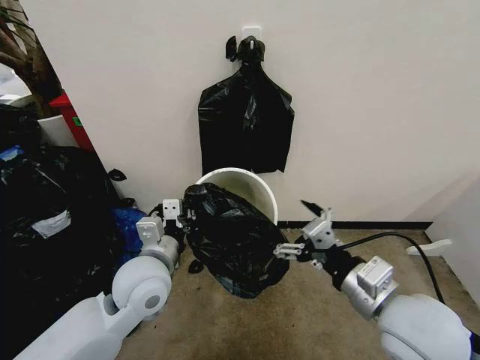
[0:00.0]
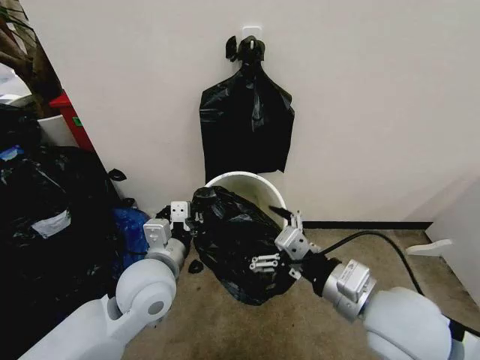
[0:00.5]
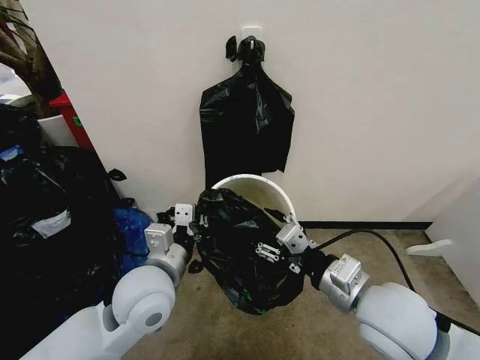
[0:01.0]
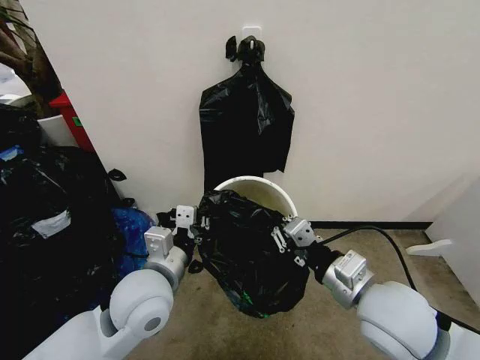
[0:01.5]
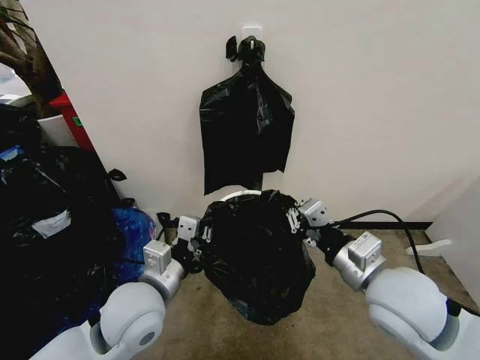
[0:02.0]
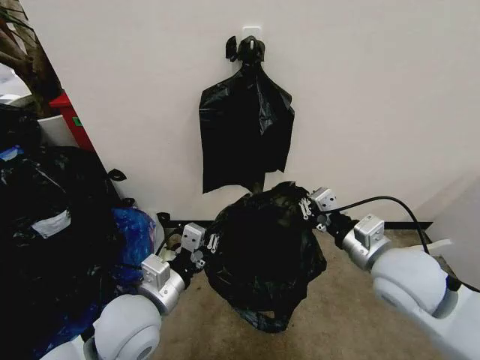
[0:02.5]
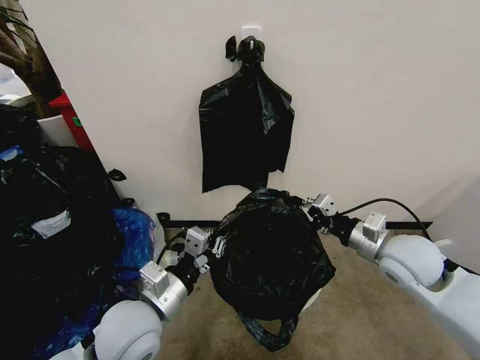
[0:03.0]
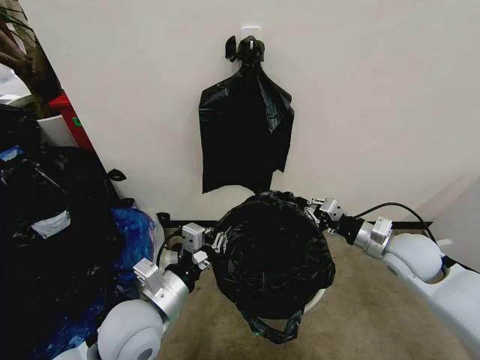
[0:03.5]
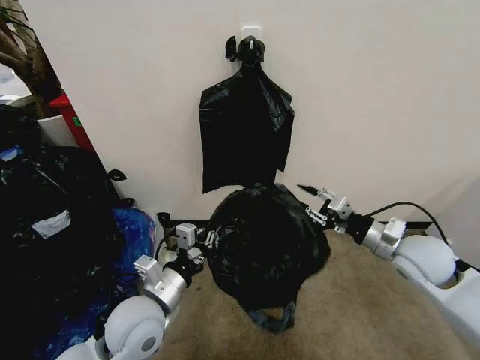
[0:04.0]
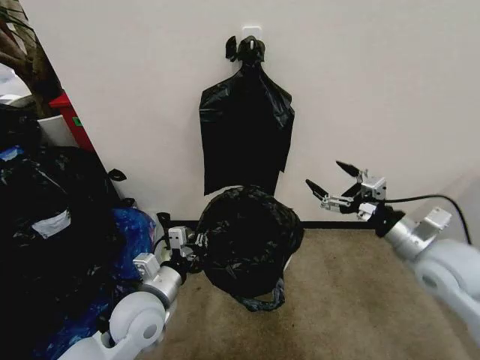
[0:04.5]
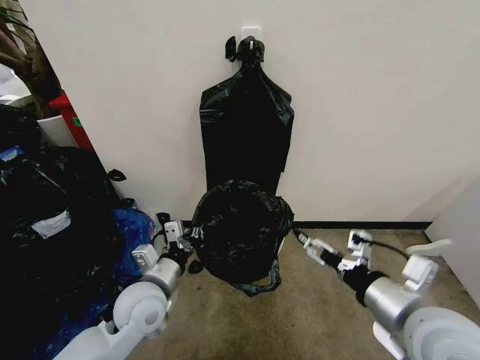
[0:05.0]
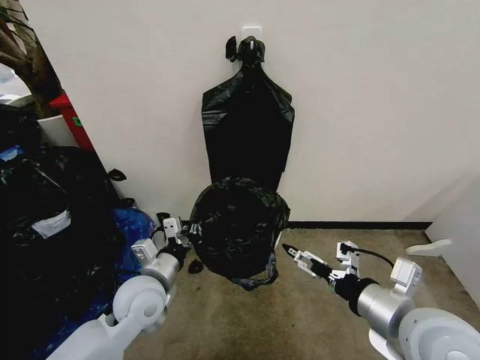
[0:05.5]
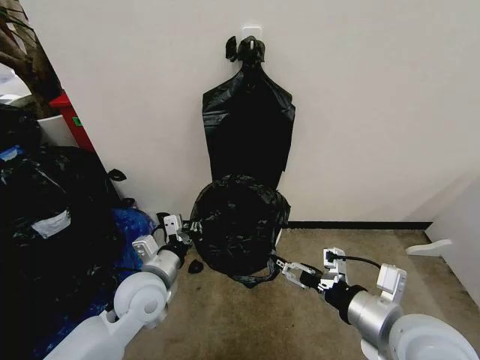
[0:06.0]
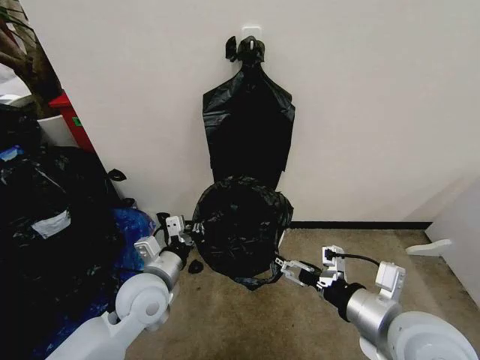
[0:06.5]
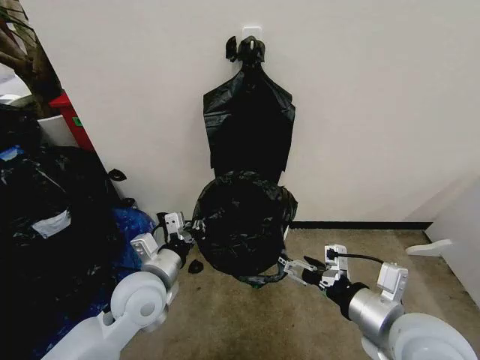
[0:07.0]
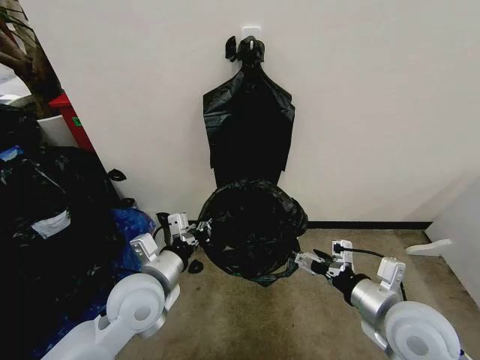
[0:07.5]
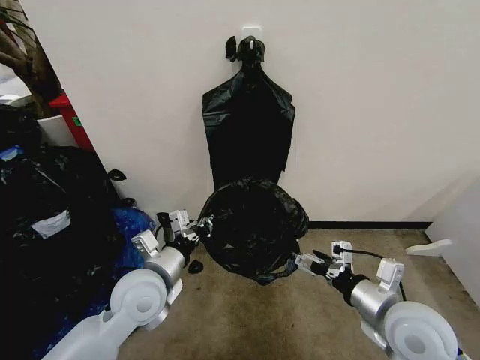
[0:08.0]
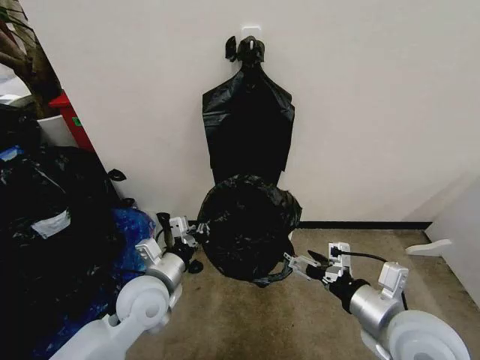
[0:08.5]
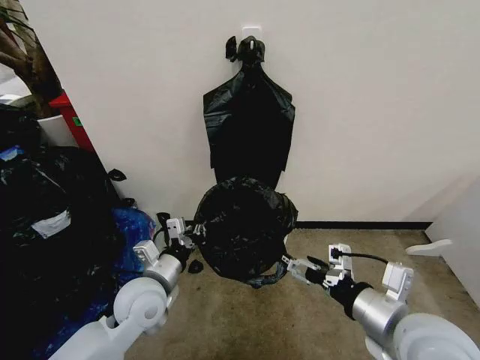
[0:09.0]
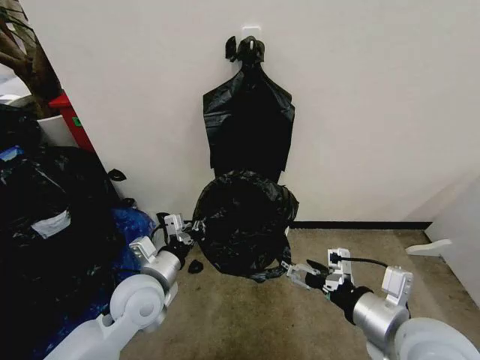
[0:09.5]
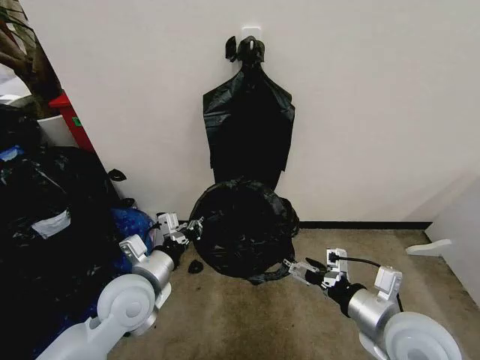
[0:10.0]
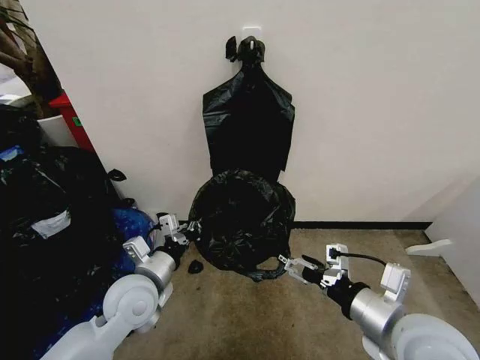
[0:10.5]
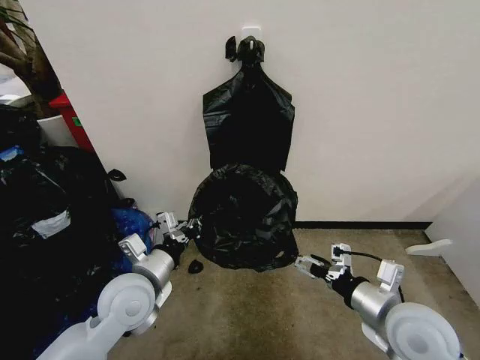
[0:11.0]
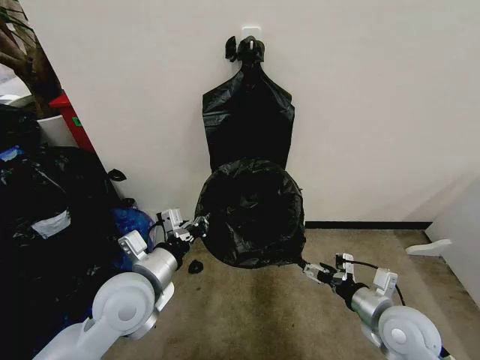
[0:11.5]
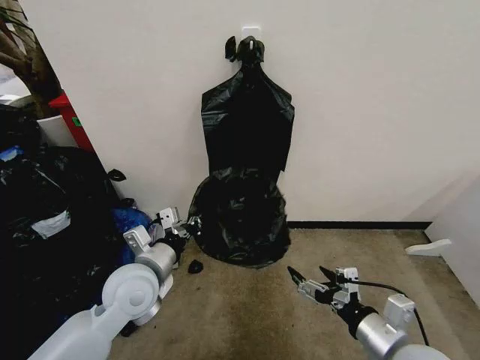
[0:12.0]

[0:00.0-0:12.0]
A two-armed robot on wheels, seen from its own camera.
Task of the whole recording: Place the garbage bag over the trash bin.
0:00.0 to 0:02.0: The right gripper closes its fingers.
0:02.0 to 0:04.0: The right gripper moves to the right, forward and downward, about 15 cm, and opens up.
0:04.0 to 0:06.0: The left gripper moves about 5 cm; the right gripper shifts some 20 cm backward and to the left, and opens up.
0:06.0 to 0:08.0: The right gripper moves downward, some 5 cm.
0:10.0 to 0:12.0: The right gripper swings up and down, some 10 cm each way, with 2 reversals.

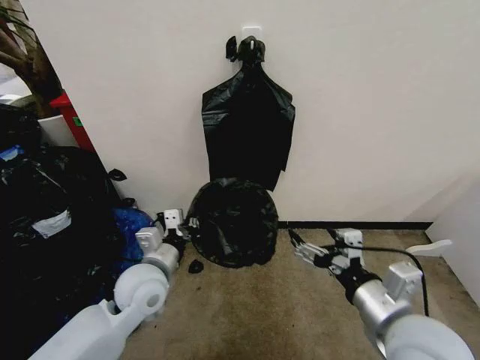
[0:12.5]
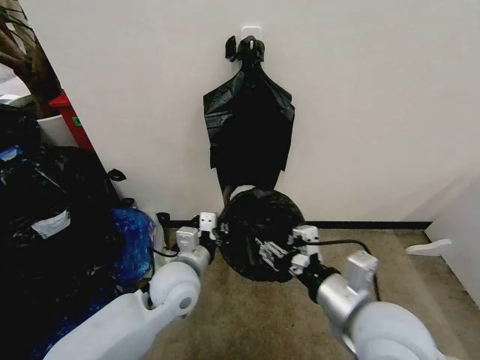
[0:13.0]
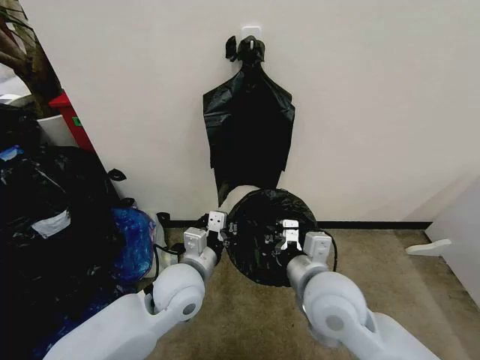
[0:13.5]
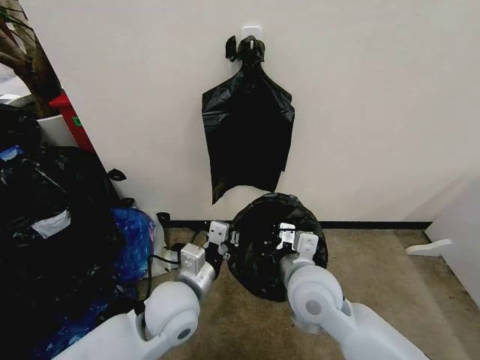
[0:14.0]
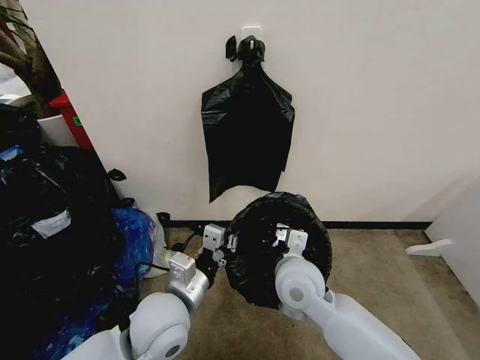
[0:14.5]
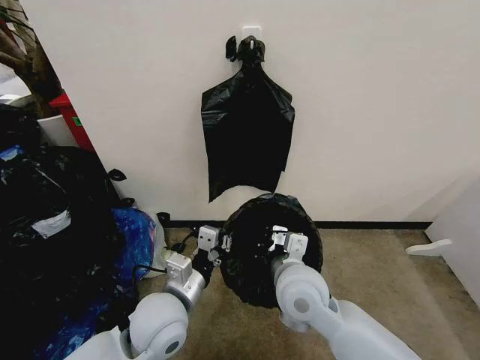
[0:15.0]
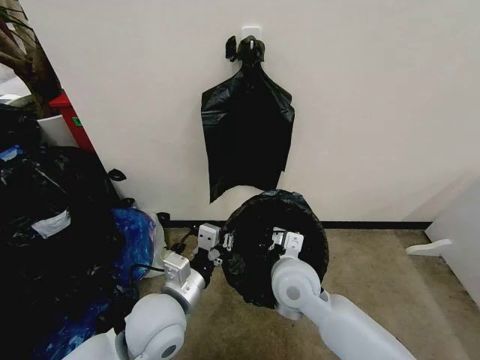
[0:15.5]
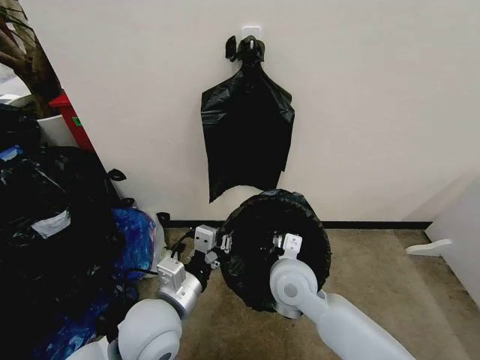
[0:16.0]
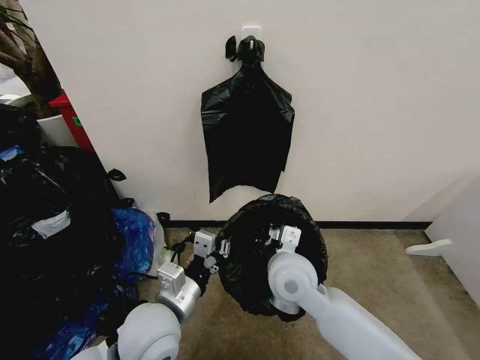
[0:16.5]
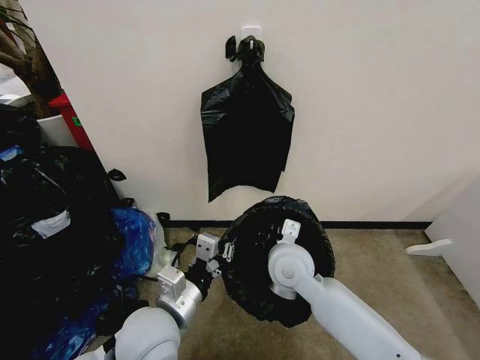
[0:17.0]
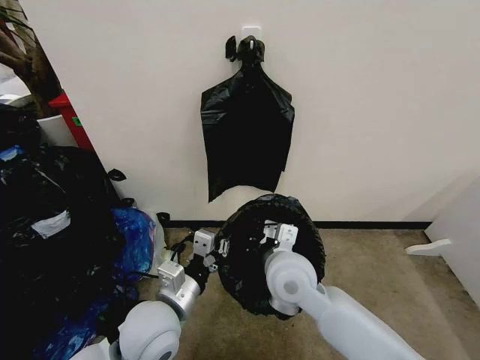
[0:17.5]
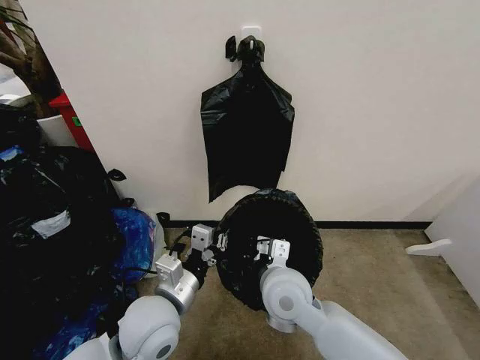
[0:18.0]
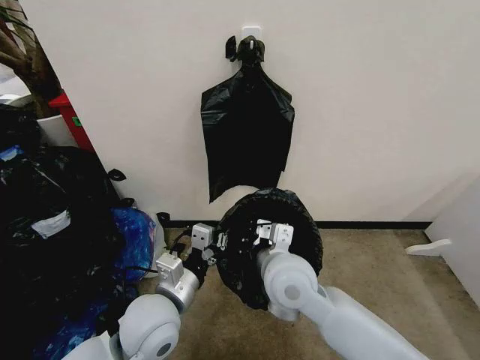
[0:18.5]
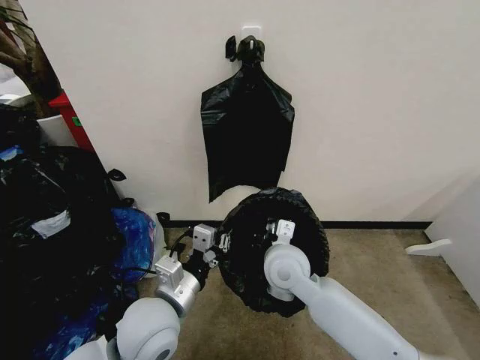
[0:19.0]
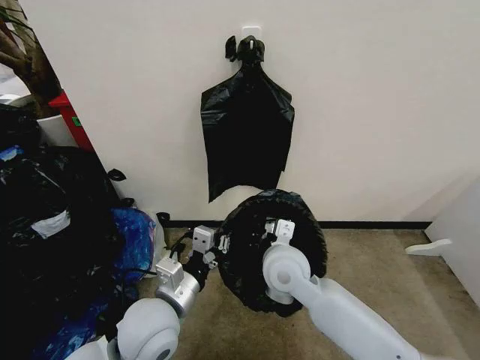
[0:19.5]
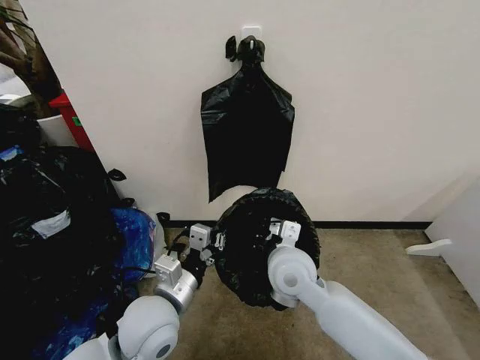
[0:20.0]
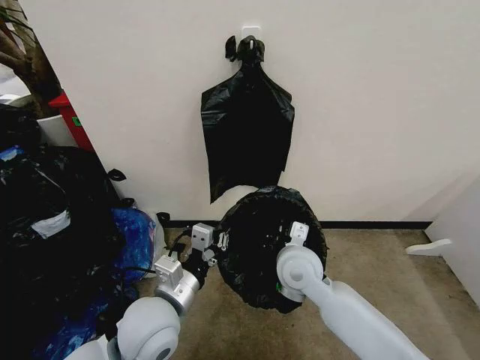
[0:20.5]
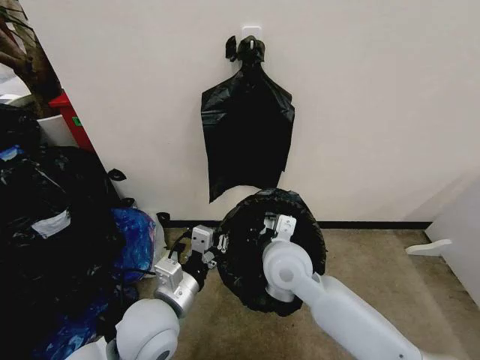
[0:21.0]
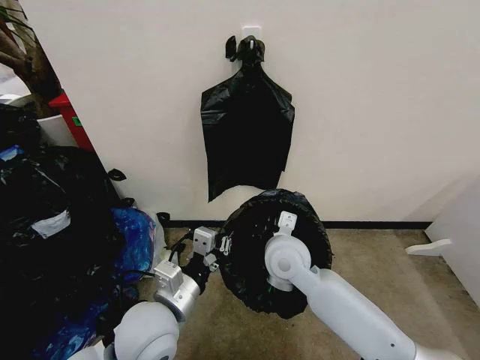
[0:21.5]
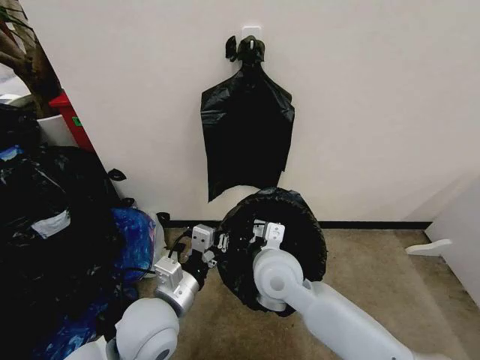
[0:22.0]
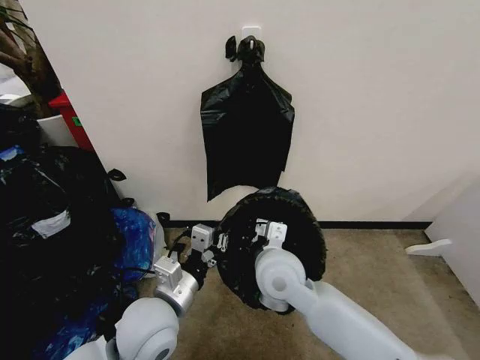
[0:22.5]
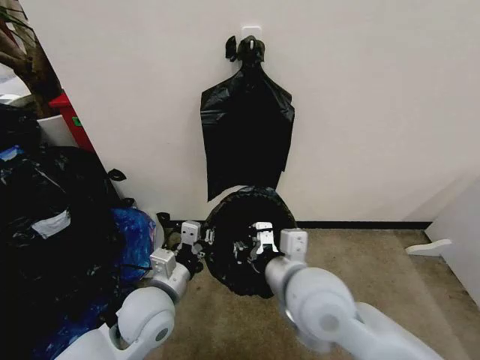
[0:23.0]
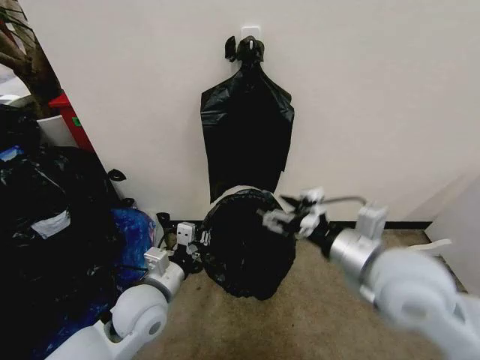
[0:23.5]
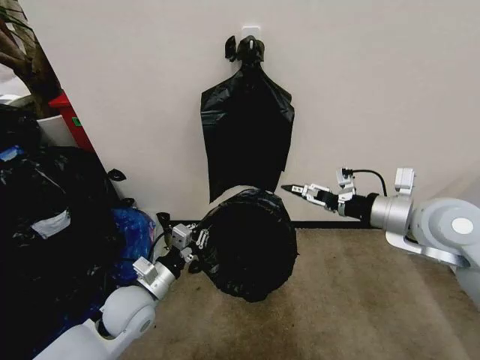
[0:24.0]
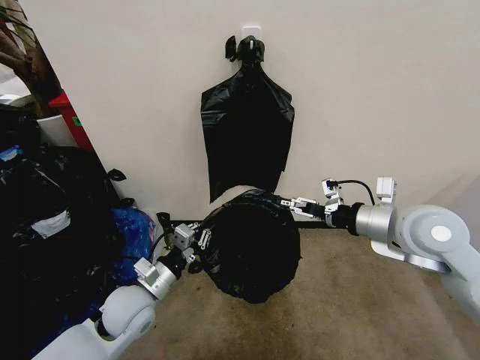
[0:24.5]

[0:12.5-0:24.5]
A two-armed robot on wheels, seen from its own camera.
Task of the whole recording: Place the garbage bag over the trash bin.
0:12.5 to 0:14.5: The left gripper travels backward and to the right by about 10 cm. Meanwhile the right gripper heads to the left, forward and downward, covering about 20 cm, and closes.
0:14.5 to 0:18.5: The grippers move only a little.
0:18.5 to 0:20.5: The right gripper moves downward, about 5 cm.
0:20.5 to 0:22.5: The right gripper changes place by approximately 5 cm.
0:22.5 to 0:24.5: The right gripper travels to the right and upward by about 25 cm, and opens; the left gripper travels to the left, downward and forward by some 10 cm.

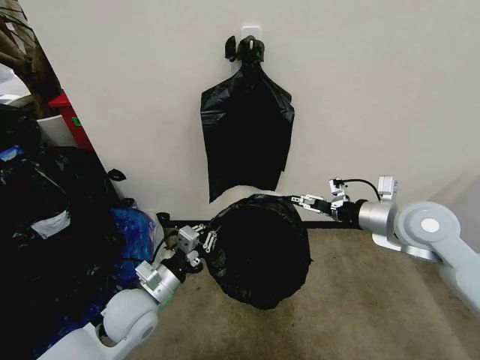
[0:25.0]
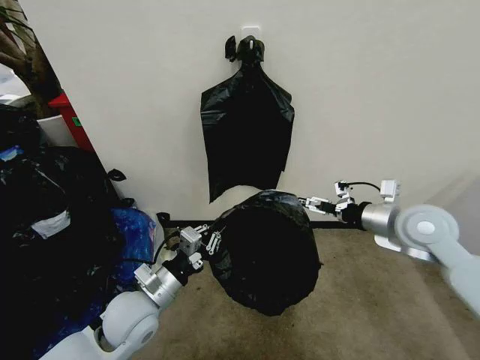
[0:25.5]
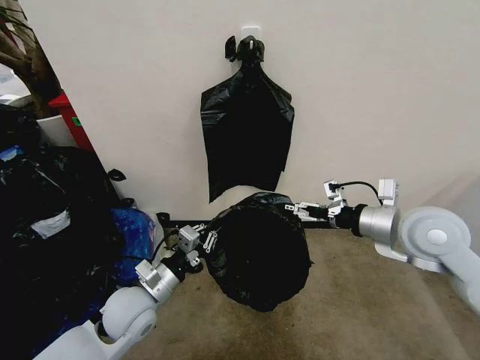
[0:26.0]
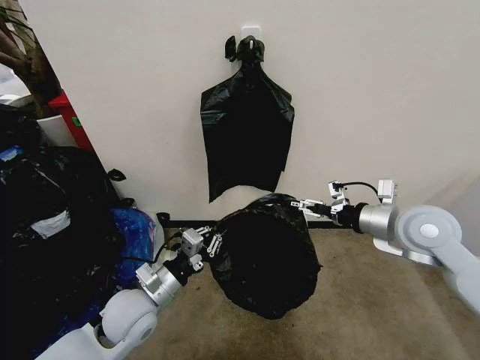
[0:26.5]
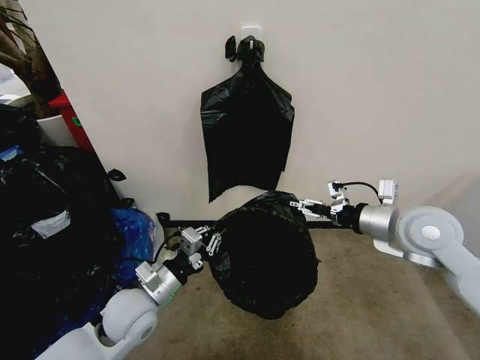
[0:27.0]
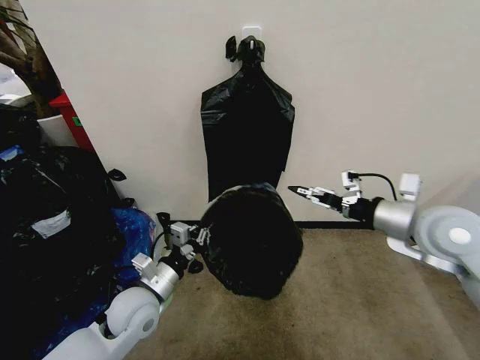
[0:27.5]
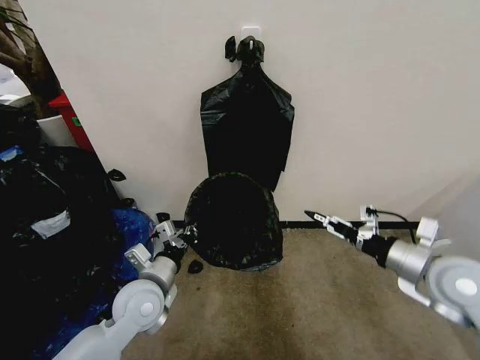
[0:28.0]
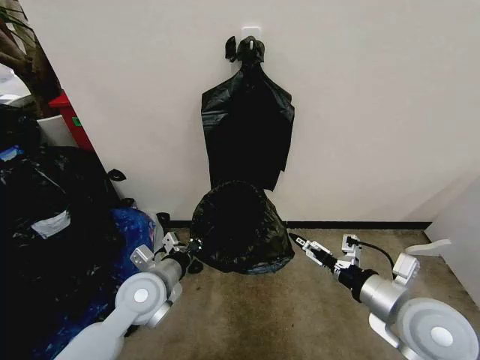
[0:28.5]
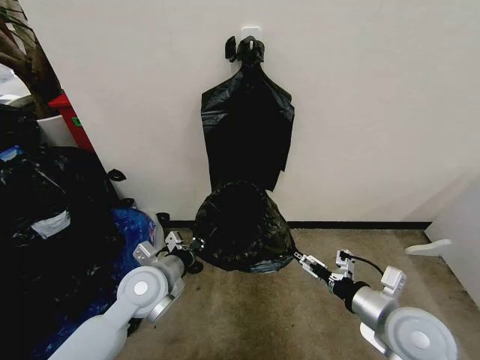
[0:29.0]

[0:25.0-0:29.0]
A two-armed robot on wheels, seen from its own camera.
Task of the whole recording: Place the garbage bag over the trash bin.
0:25.0 to 0:27.0: The grippers stay close to where they were, moving slightly.
0:27.0 to 0:29.0: The left gripper moves about 5 cm. Meanwhile the right gripper is displaced backward and downward by about 20 cm.
